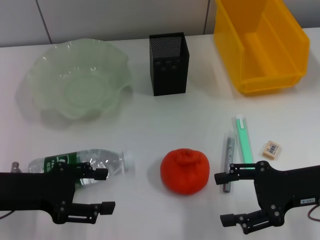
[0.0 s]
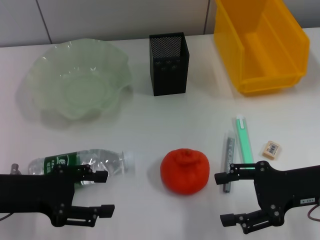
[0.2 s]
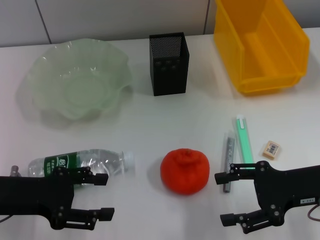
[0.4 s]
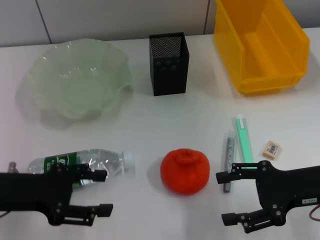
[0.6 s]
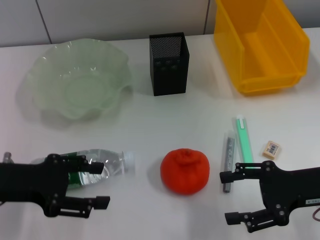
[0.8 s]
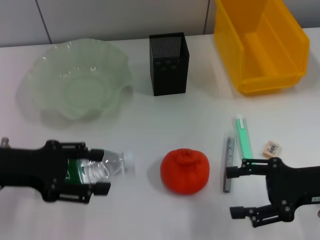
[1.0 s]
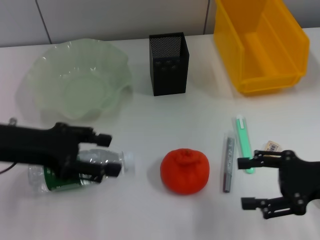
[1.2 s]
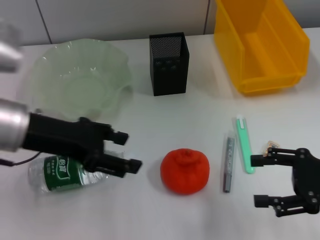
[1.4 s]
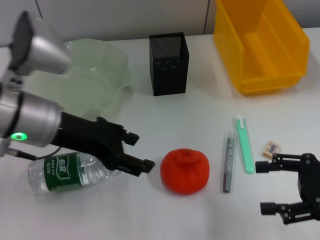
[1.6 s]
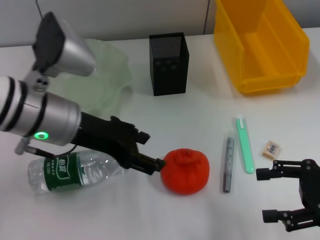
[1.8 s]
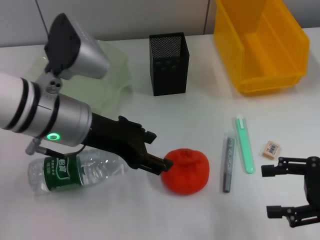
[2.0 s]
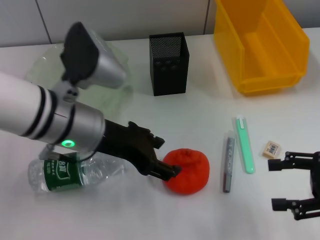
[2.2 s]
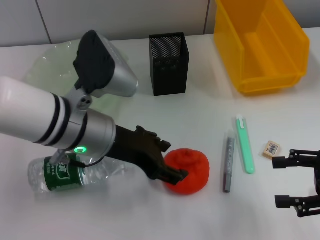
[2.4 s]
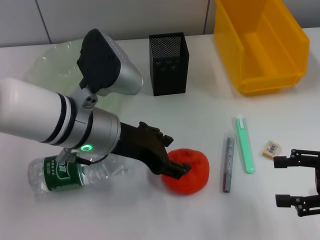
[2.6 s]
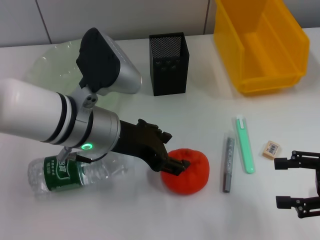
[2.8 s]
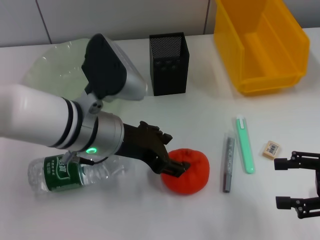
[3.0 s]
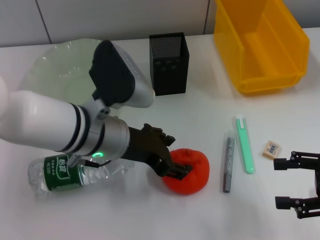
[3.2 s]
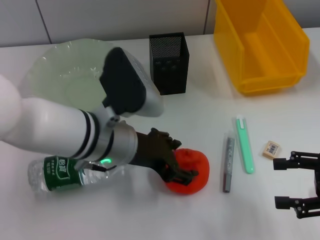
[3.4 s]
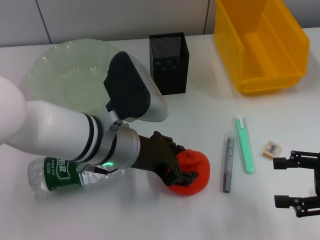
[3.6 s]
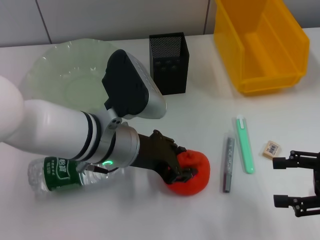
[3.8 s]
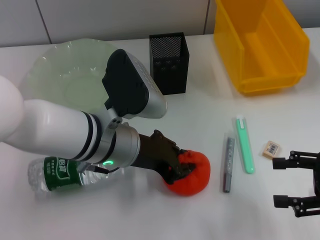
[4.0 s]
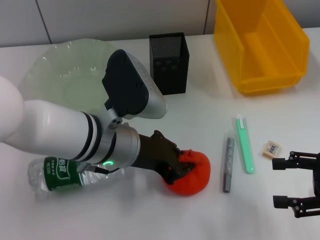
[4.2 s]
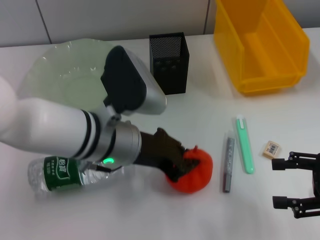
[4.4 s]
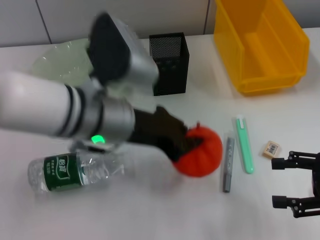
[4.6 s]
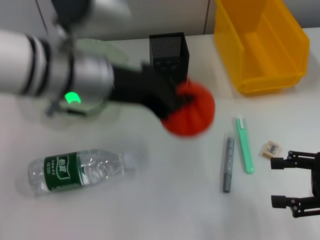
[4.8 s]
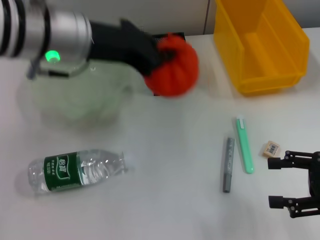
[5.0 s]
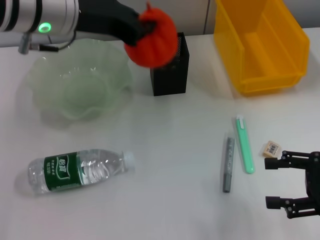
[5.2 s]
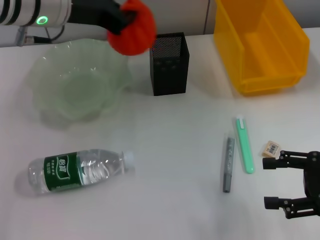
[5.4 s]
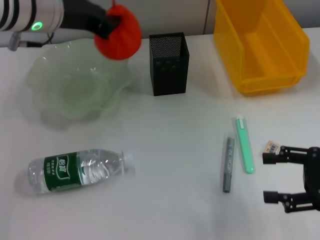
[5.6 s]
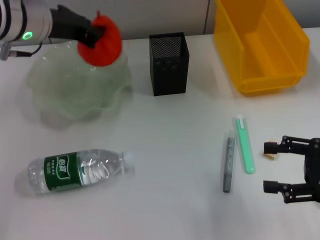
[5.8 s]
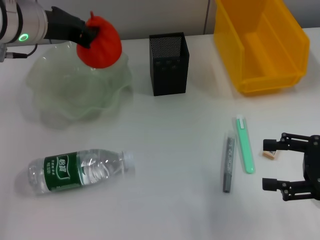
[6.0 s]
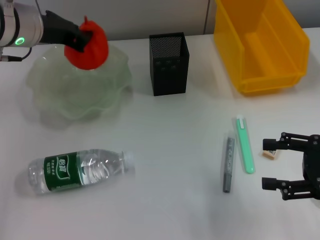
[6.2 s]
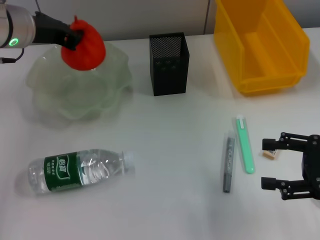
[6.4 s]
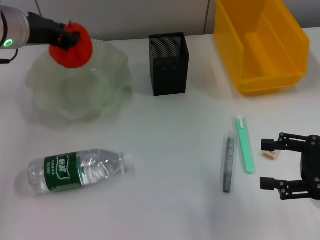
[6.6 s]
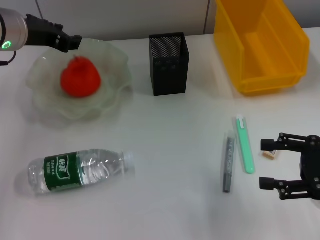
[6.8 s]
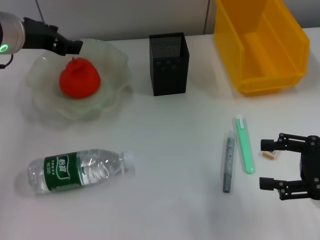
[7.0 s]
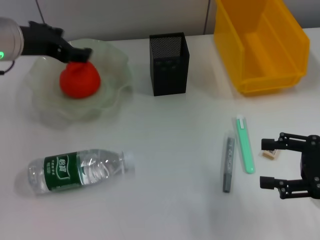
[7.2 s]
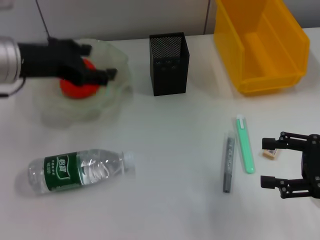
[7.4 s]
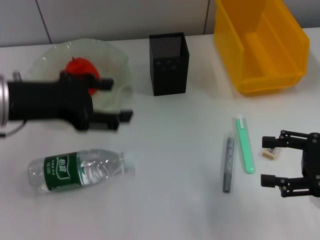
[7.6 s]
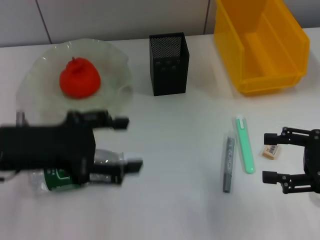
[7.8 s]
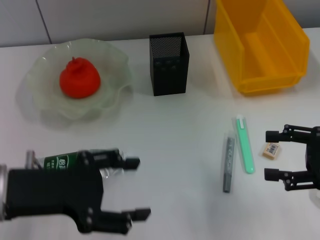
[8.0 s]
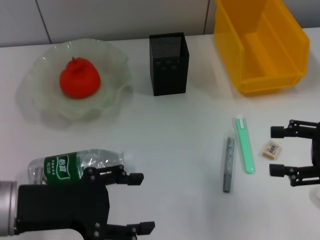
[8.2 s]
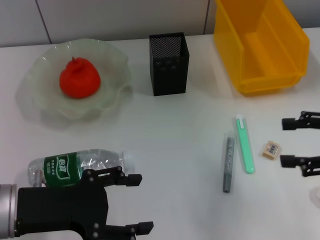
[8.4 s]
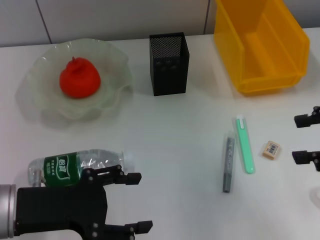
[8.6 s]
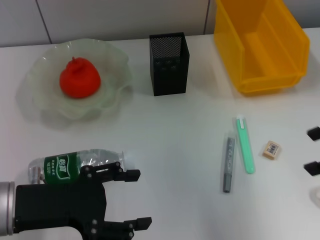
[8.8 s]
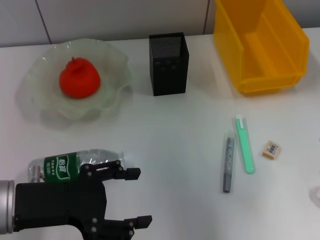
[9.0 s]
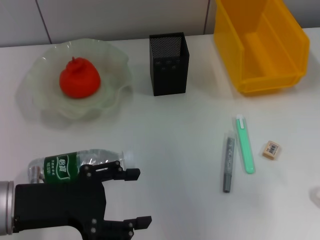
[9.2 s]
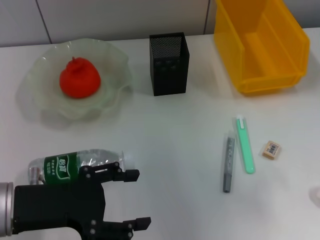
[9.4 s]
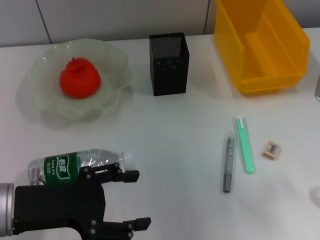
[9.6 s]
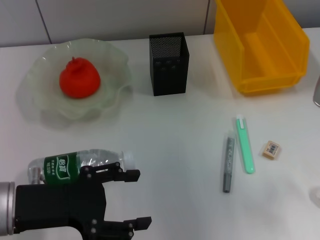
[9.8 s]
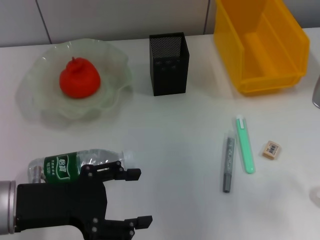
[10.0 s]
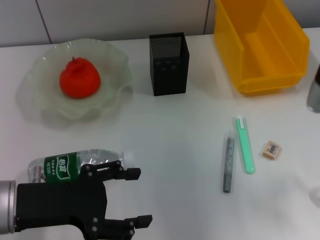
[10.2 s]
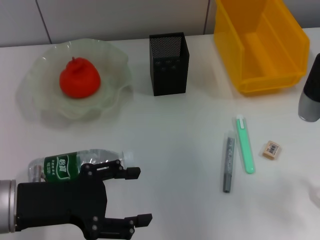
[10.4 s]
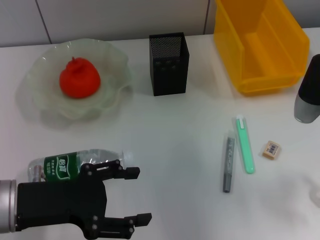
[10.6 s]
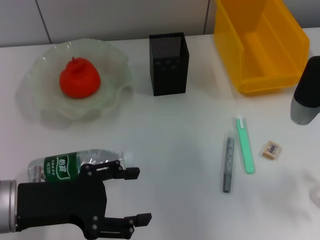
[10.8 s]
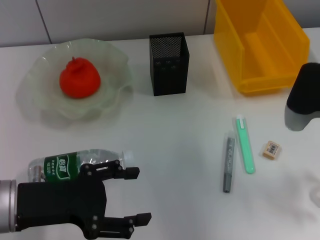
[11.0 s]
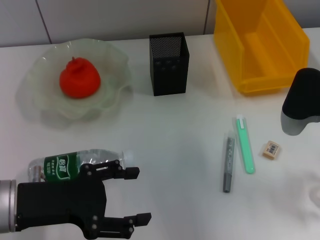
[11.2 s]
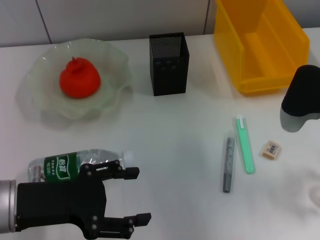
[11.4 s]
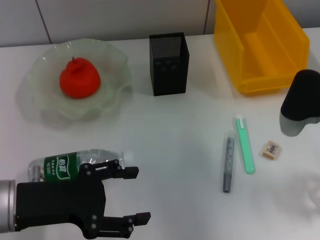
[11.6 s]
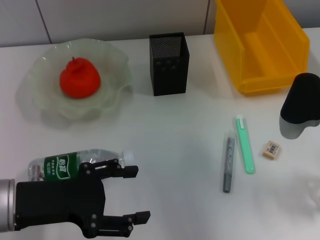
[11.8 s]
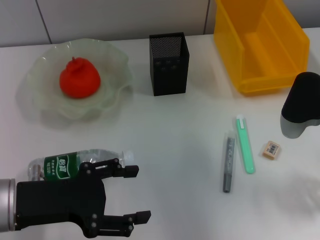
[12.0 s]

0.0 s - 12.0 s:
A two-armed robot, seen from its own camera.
Step, 0.0 s - 4.2 s: Grab the orange with the left hand.
Step, 4.4 s - 6.8 s: Place the orange into the fruit bowl with the left hand.
0.0 s - 1.6 s: The right gripper heads to the right, covering about 5 cm; the left gripper goes some 10 cm upward and to the right.
1.6 s - 3.0 s: The left gripper moves to the right, approximately 10 cm.
3.0 s - 4.4 s: The left gripper closes up.
4.4 s - 6.0 s: The left gripper is displaced forward, to the left and upward by about 20 cm.
6.0 s - 7.6 s: The left gripper travels backward by roughly 10 cm, and opens up.
7.6 s - 9.0 s: The left gripper moves backward and downward, about 10 cm. Meanwhile the right gripper heads upward and forward, covering some 15 cm.
9.0 s - 10.4 s: The right gripper is displaced downward by some 5 cm.
10.4 s - 12.0 s: The right gripper closes up.

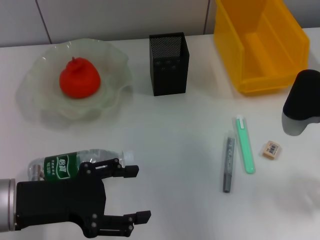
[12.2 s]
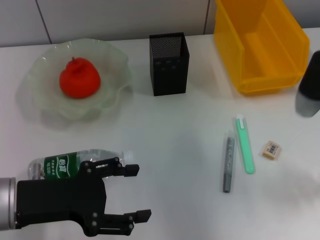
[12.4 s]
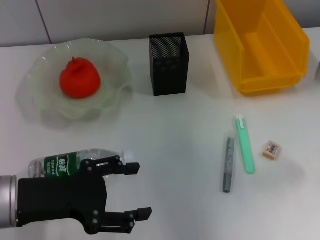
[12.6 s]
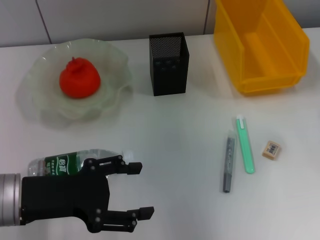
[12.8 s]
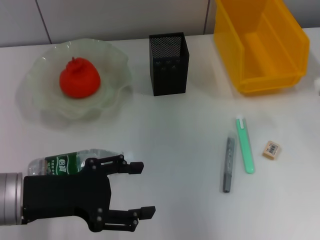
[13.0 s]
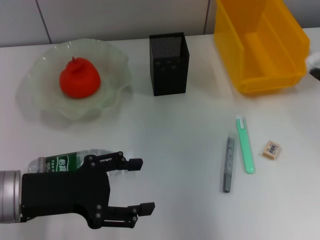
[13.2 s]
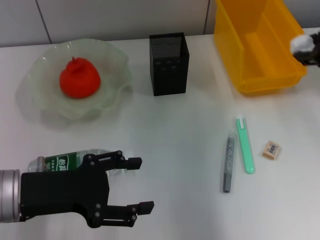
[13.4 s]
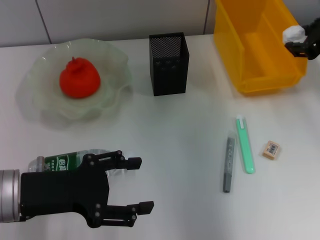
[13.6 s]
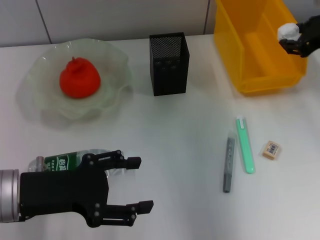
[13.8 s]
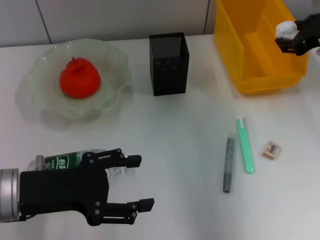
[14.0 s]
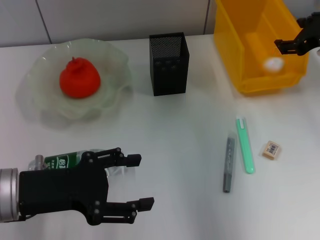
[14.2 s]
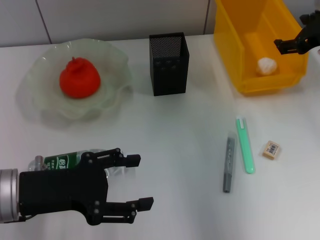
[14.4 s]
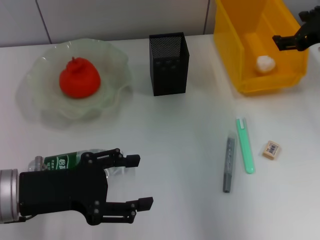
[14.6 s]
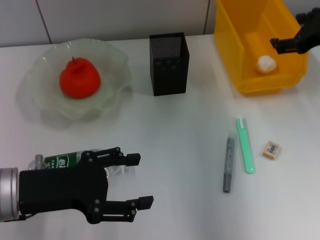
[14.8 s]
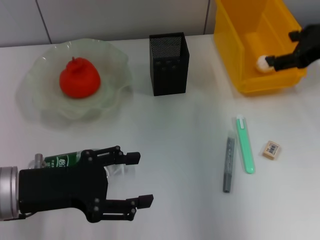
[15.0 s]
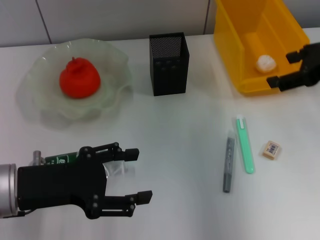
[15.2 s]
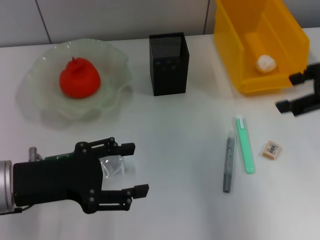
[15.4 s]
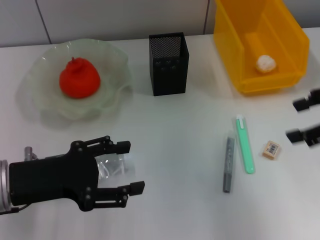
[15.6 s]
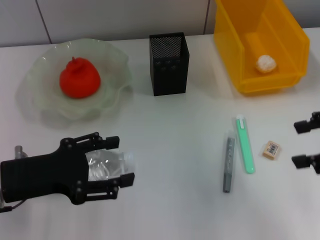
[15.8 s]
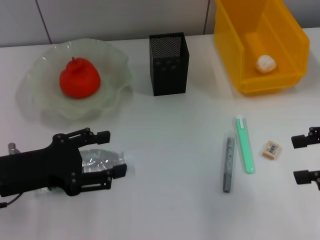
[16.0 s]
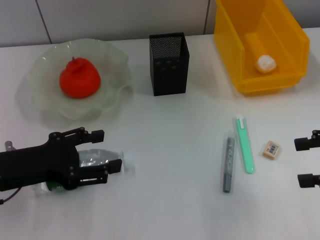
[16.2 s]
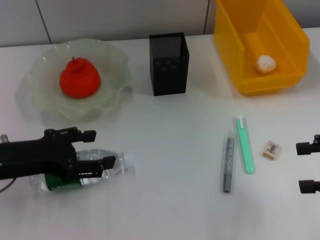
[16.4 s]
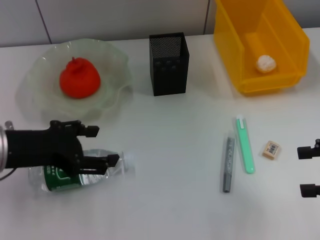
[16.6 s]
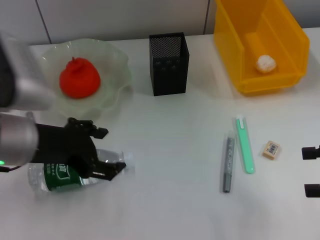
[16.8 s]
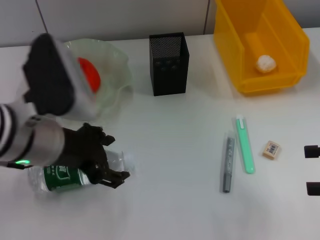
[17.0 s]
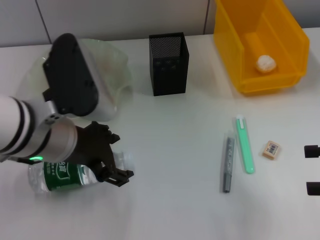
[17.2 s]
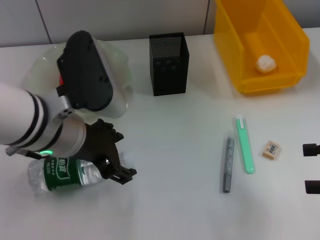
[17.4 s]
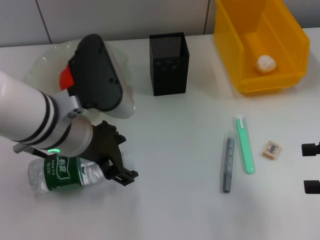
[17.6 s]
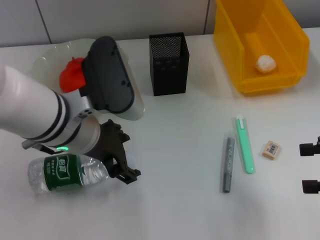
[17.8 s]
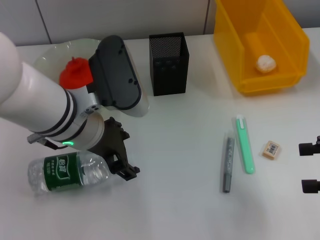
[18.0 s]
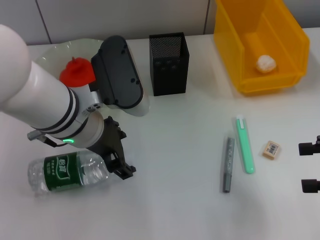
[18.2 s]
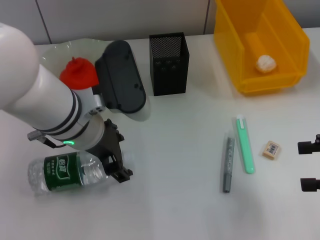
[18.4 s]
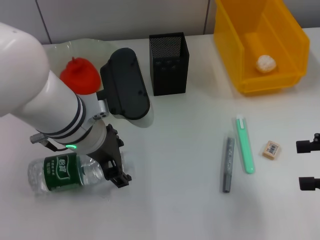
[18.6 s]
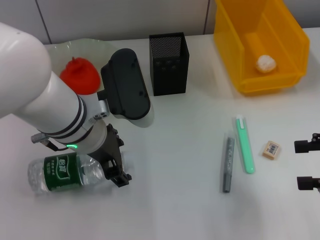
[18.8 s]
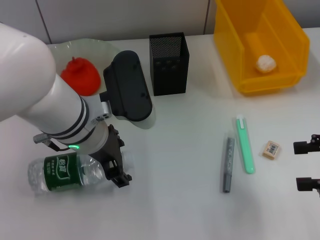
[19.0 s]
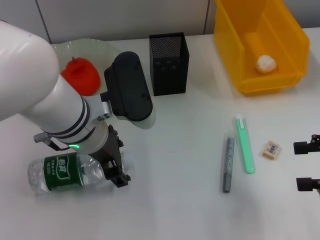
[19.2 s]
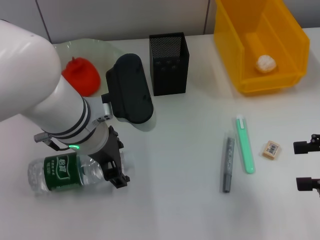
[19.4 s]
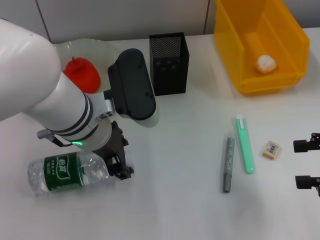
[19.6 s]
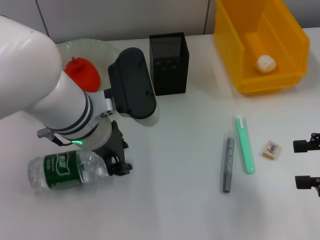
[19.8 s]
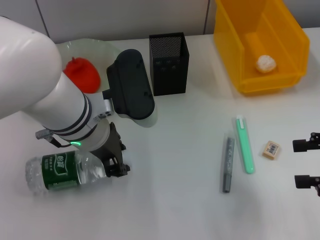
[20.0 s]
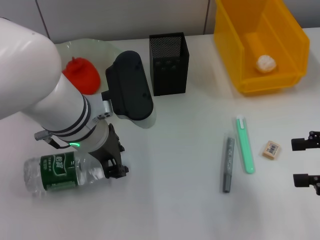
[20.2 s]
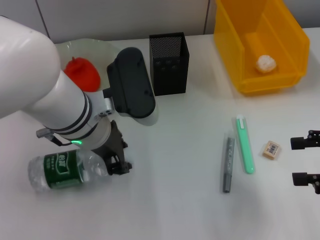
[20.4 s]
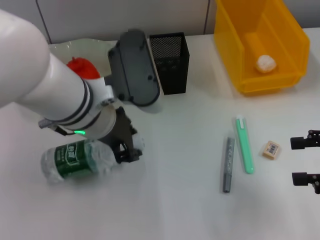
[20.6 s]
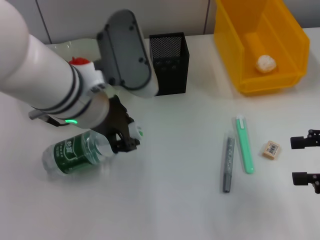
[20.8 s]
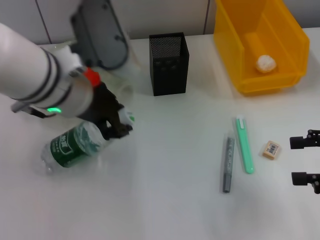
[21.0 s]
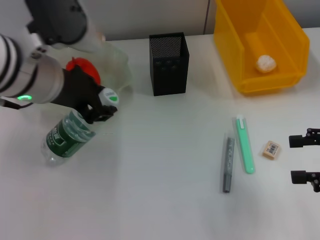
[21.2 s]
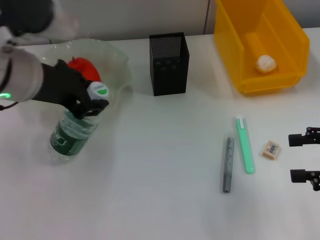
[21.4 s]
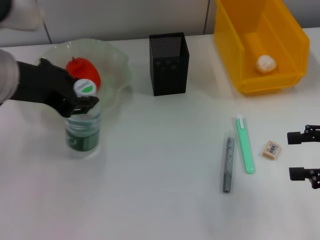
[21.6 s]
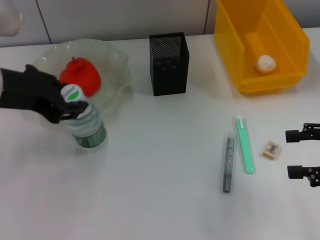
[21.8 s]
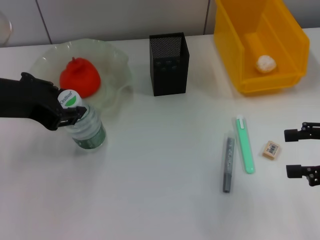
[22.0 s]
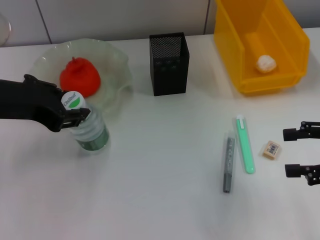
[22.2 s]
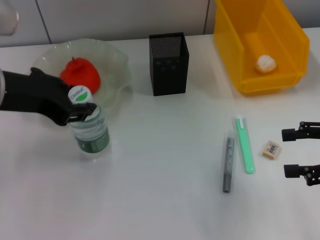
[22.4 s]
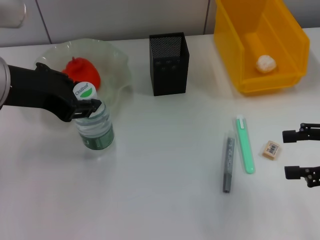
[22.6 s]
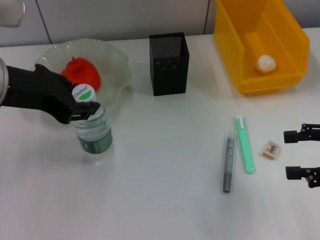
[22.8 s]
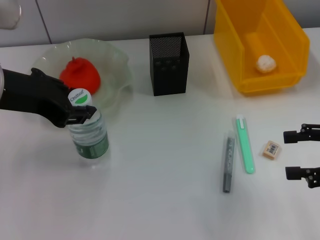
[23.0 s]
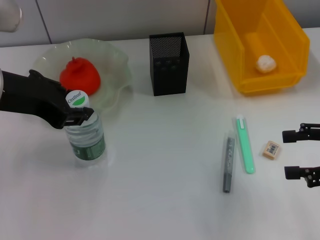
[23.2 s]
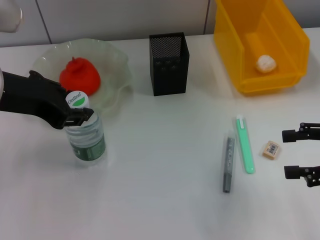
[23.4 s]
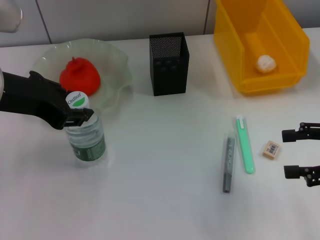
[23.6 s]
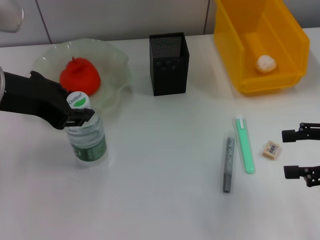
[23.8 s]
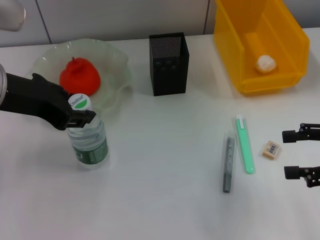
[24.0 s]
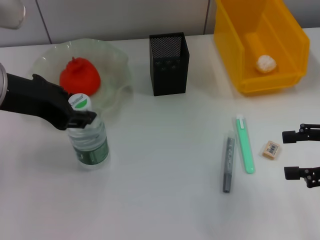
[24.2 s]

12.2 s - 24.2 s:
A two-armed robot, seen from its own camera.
Step, 12.4 s - 14.2 s: Place the paper ball into the trash can with the right hand.
Step, 14.6 s - 20.0 s: Grab the water bottle with the left hand.
12.2 s - 13.8 s: The right gripper goes roughly 10 cm forward and upward.
13.8 s - 15.2 s: The right gripper shifts approximately 5 cm backward, and opens.
15.2 s - 16.6 s: The left gripper moves about 5 cm; the right gripper heads backward, downward and to the right, covering about 15 cm.
16.6 s - 18.2 s: The left gripper travels to the right by about 10 cm.
18.2 s - 19.8 s: The grippers move only a little.
19.8 s - 21.2 s: The left gripper goes approximately 10 cm upward and to the left.
21.2 s - 22.6 s: The left gripper moves some 5 cm.
22.6 s - 24.2 s: The grippers move only a little.
